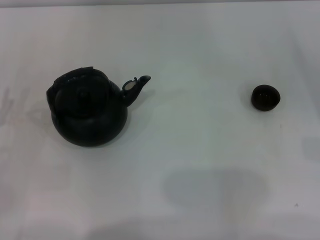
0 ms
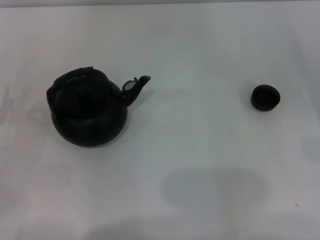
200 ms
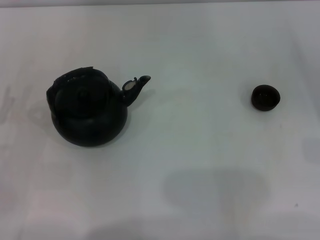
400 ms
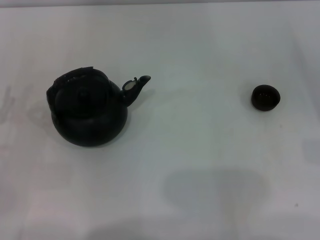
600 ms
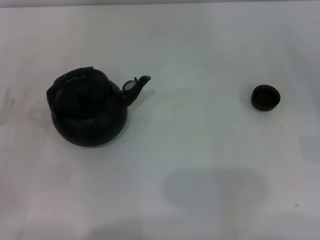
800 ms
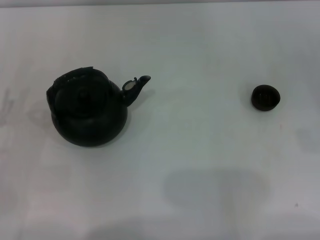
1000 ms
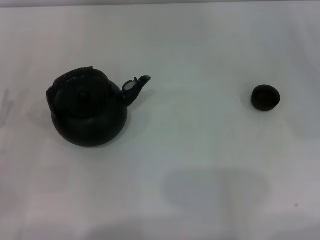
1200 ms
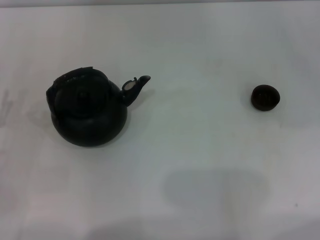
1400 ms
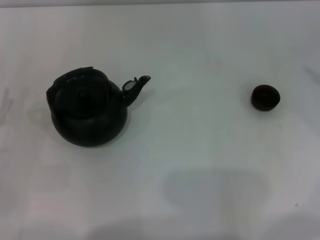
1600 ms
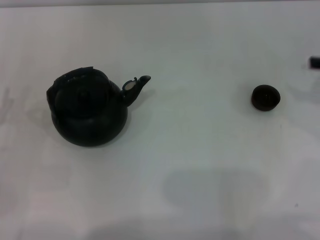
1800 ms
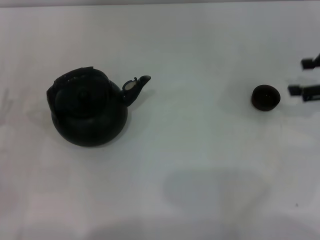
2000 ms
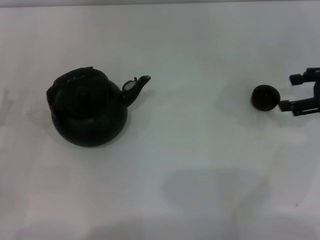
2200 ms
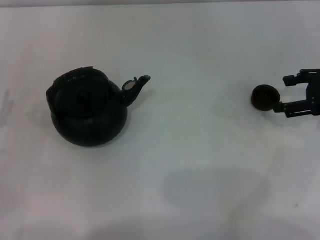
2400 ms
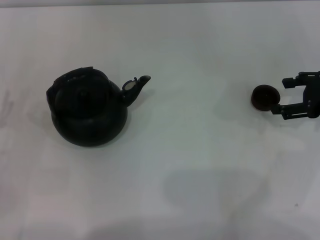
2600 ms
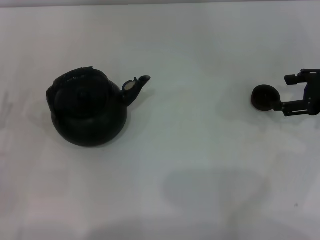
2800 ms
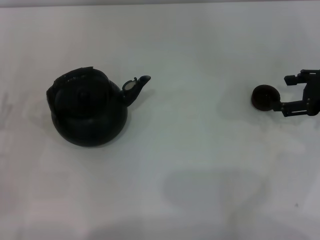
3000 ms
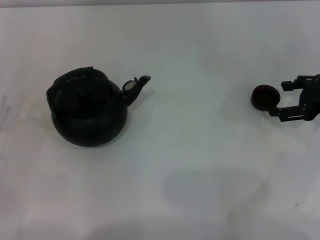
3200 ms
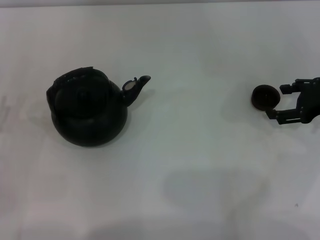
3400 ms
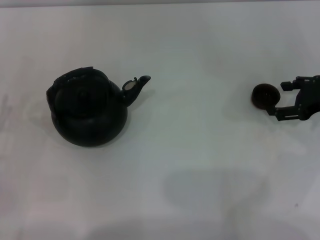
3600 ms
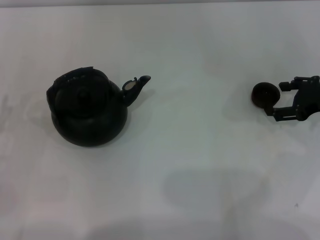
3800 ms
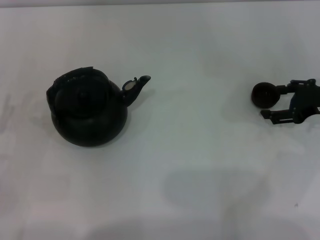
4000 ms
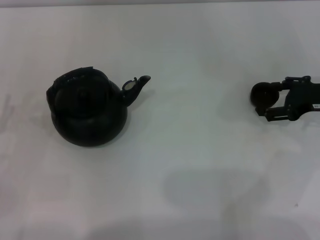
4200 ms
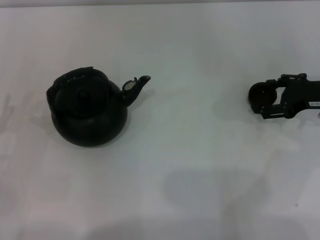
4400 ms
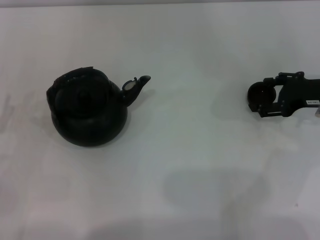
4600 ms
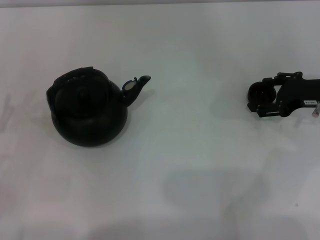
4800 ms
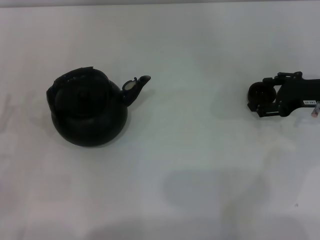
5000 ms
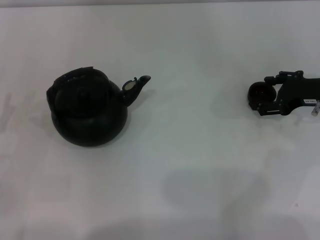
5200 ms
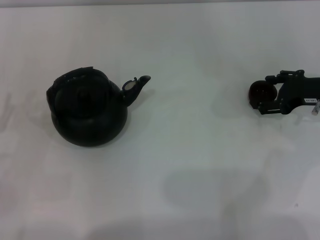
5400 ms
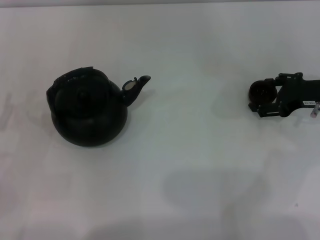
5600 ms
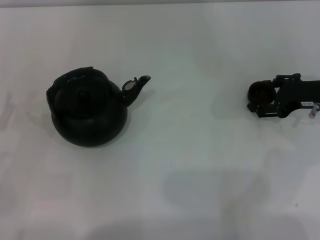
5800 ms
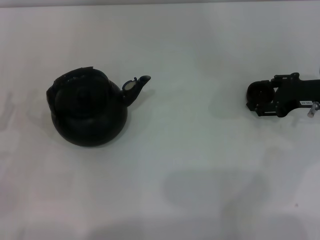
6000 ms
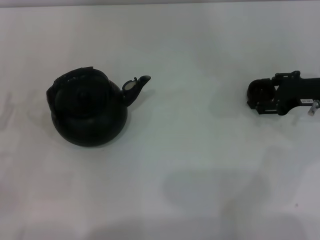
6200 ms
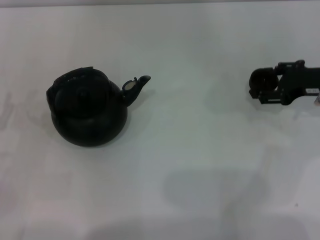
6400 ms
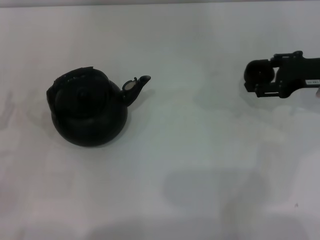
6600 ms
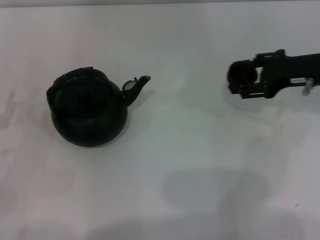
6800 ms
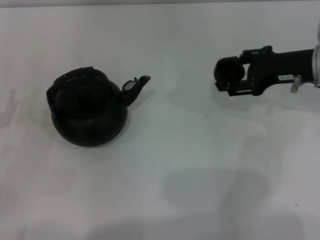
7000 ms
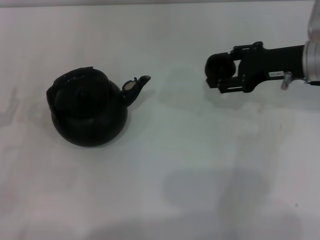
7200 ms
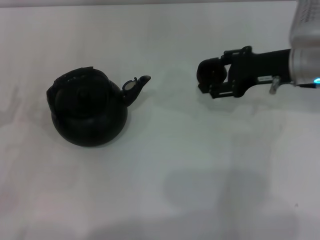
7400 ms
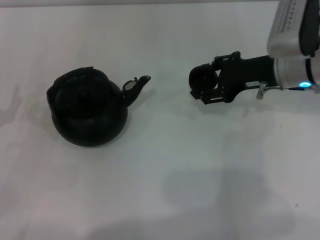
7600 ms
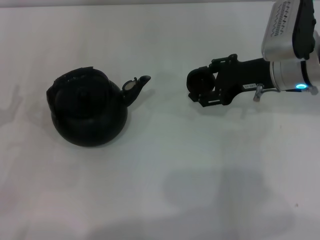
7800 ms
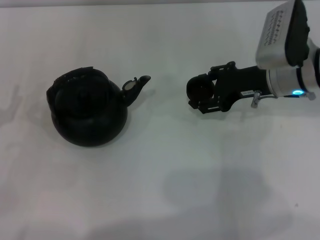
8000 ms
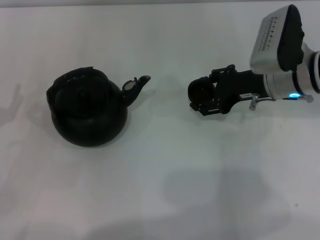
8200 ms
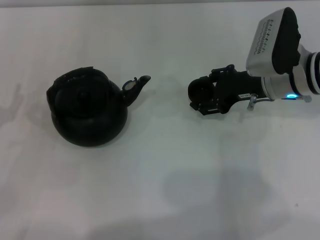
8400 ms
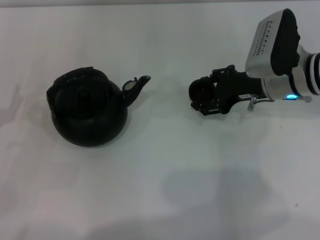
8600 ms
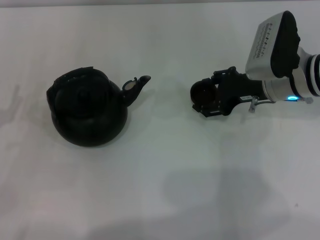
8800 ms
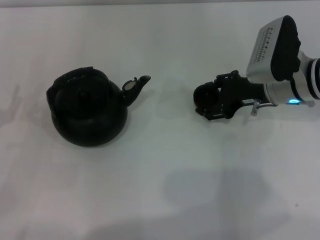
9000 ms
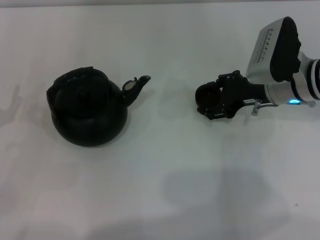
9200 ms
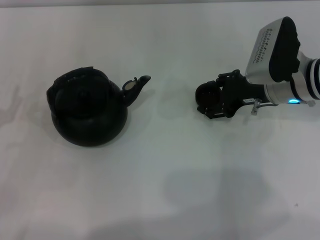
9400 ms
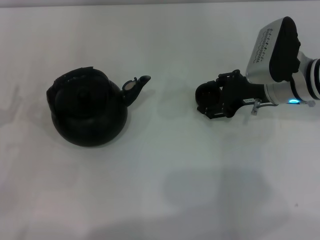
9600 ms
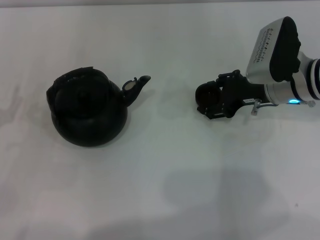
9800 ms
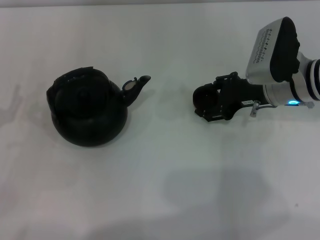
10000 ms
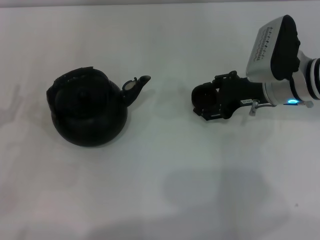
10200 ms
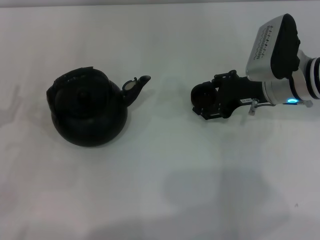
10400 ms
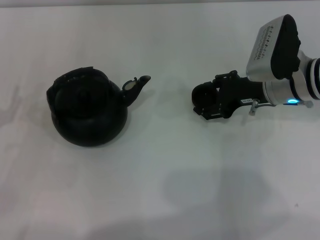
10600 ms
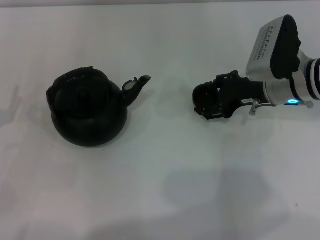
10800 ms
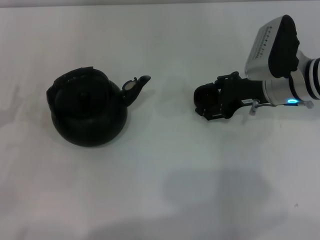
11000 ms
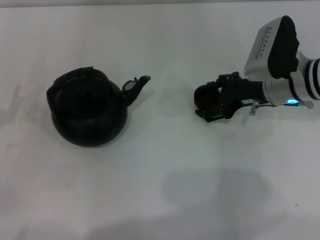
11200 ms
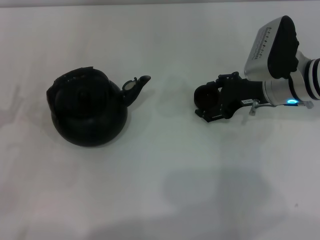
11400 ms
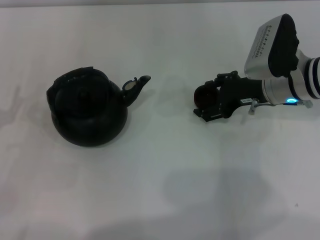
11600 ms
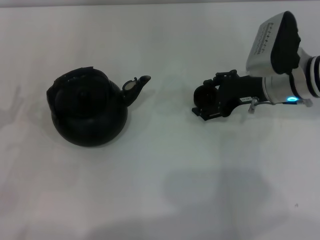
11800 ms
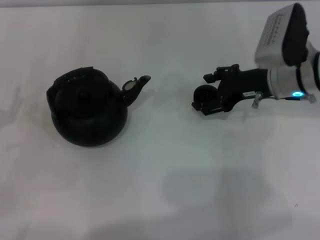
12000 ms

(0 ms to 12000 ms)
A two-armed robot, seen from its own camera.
Task of the whole recording: Grasp the handle of the teapot with one hand and pour tea into the teacup.
Step, 0 ms - 6400 ms: Pick up the teacup with the right gripper.
1600 ms - 3000 ms: The right gripper goes roughly 10 cm to the left and downward.
3000 ms - 6000 ms: There are only small adjustments of the grippers.
6000 ms - 7600 ms: The right gripper goes about 10 cm to the left, and closes its fingers.
7600 ms - 9000 ms: There are only small adjustments of the grippers.
9000 ms - 10400 ms: Both grippers stay put.
10400 ms - 12000 ms: Neither gripper changes place.

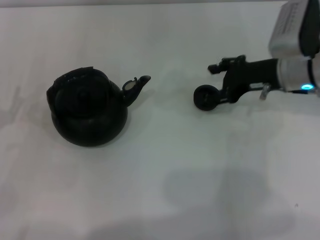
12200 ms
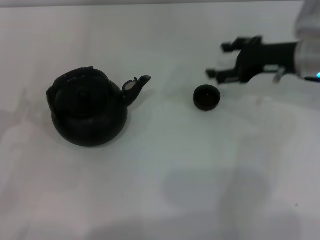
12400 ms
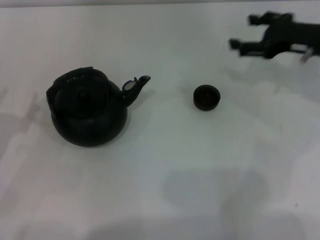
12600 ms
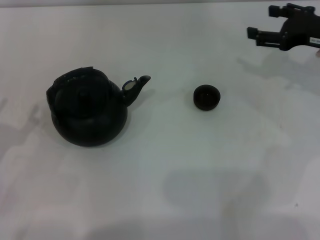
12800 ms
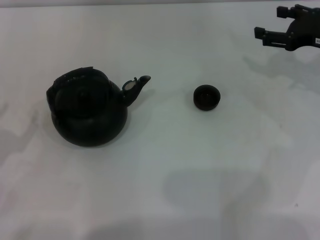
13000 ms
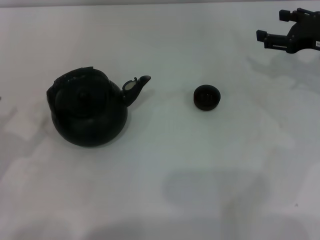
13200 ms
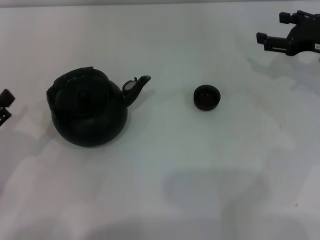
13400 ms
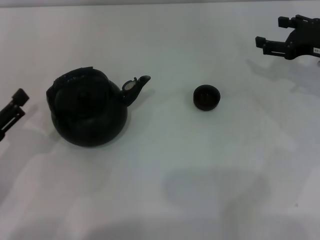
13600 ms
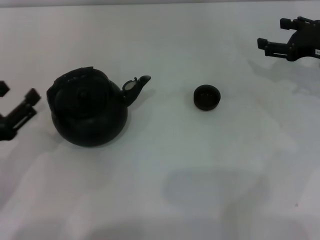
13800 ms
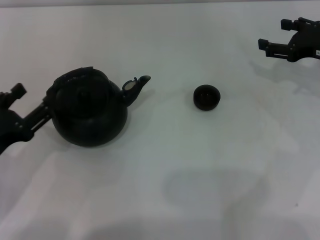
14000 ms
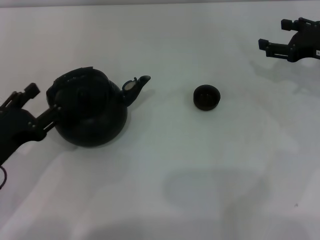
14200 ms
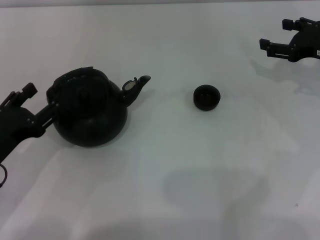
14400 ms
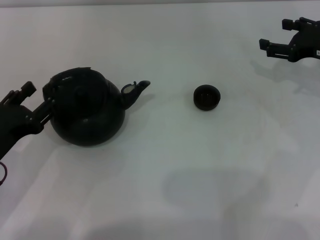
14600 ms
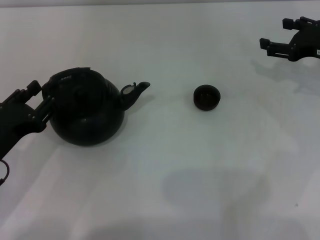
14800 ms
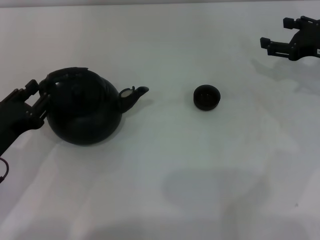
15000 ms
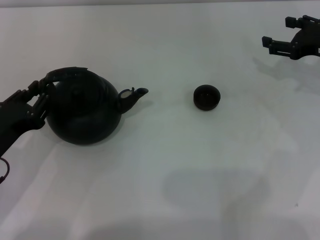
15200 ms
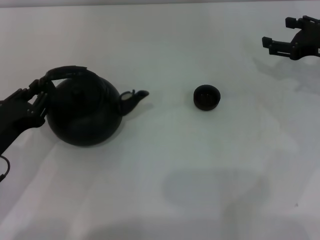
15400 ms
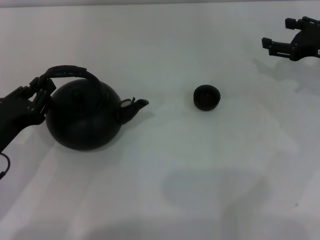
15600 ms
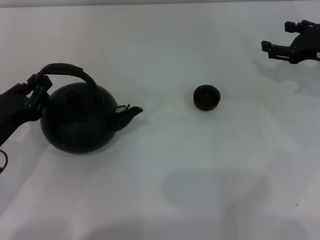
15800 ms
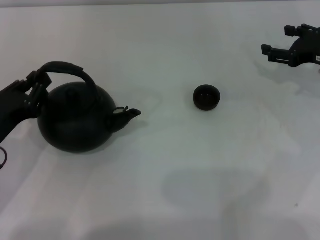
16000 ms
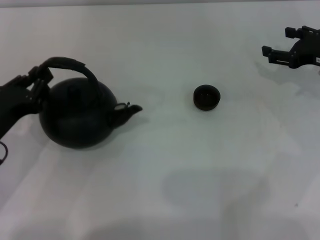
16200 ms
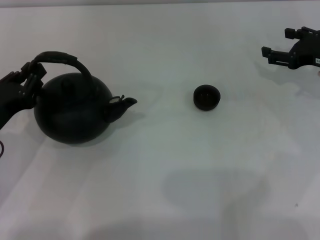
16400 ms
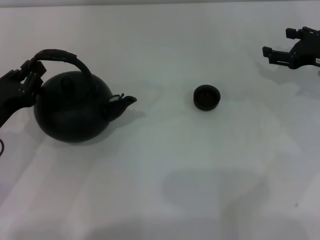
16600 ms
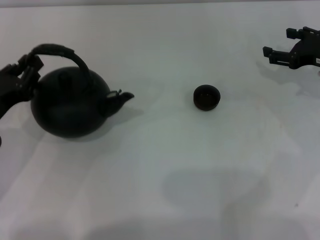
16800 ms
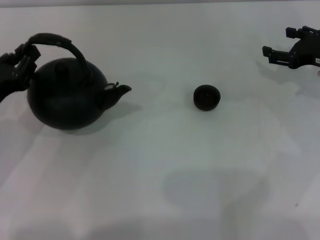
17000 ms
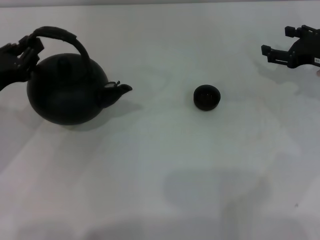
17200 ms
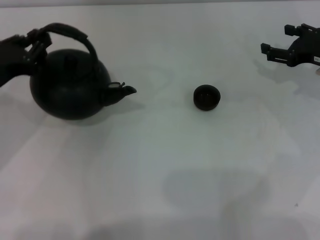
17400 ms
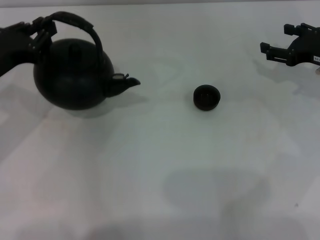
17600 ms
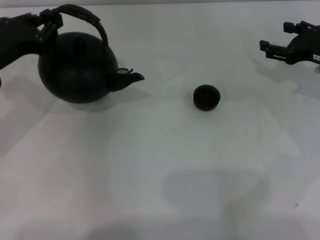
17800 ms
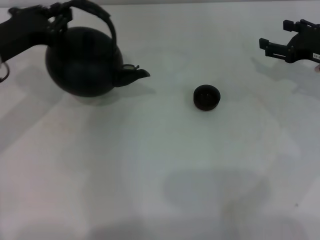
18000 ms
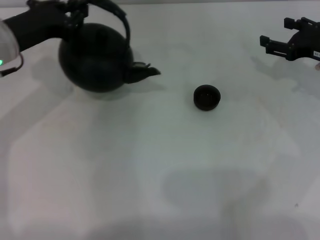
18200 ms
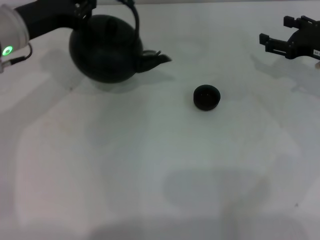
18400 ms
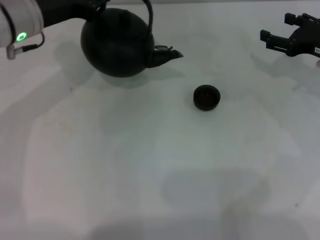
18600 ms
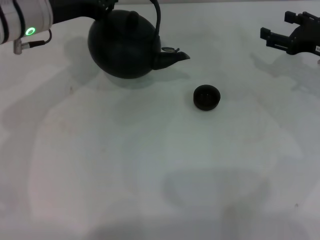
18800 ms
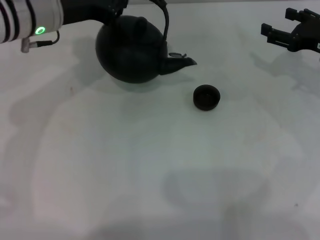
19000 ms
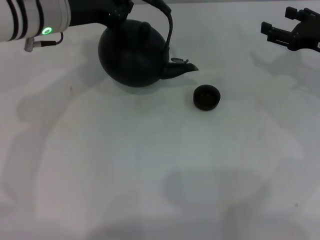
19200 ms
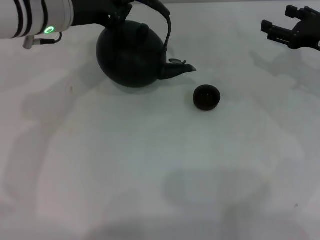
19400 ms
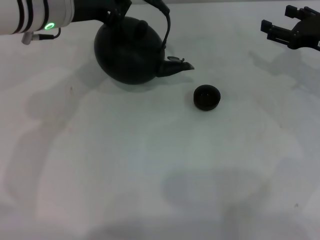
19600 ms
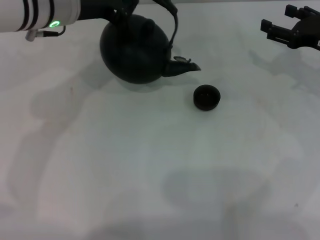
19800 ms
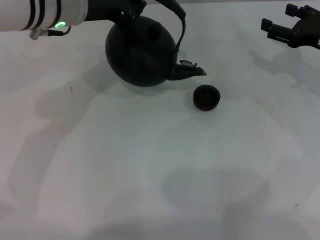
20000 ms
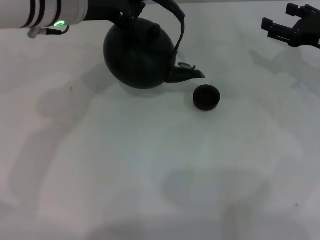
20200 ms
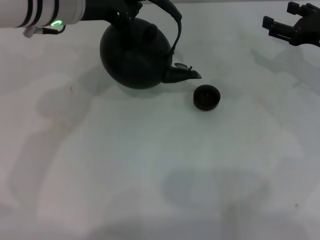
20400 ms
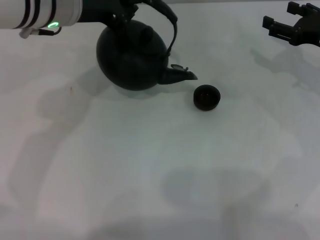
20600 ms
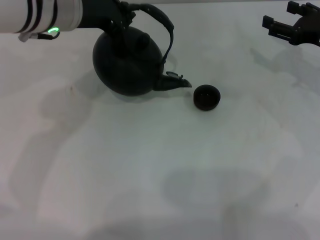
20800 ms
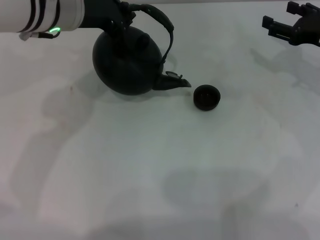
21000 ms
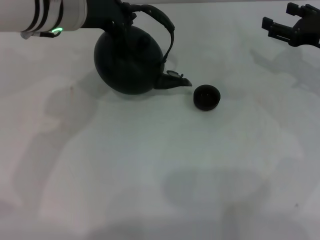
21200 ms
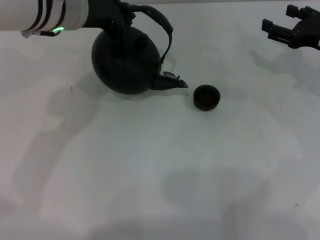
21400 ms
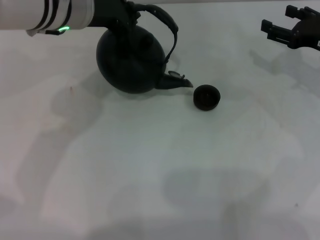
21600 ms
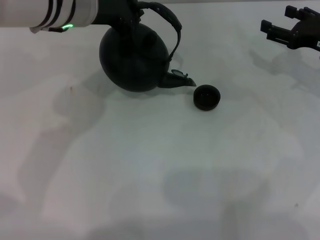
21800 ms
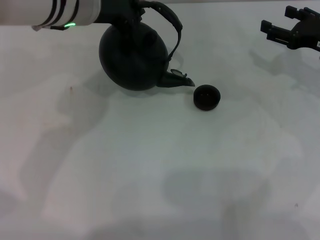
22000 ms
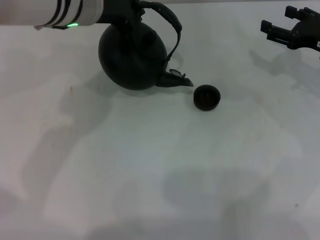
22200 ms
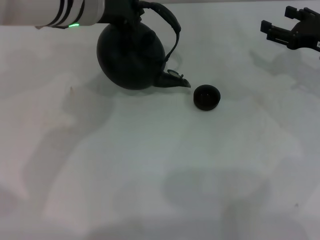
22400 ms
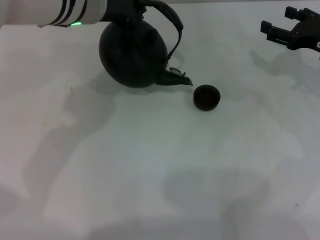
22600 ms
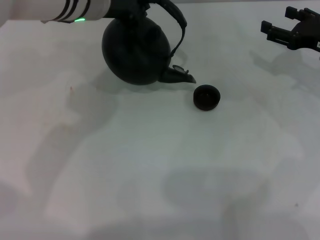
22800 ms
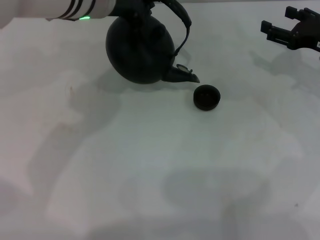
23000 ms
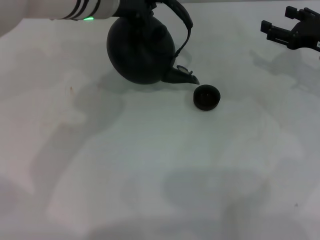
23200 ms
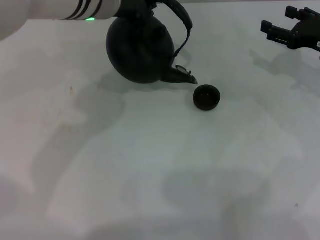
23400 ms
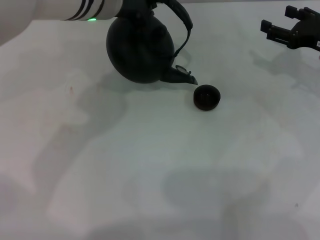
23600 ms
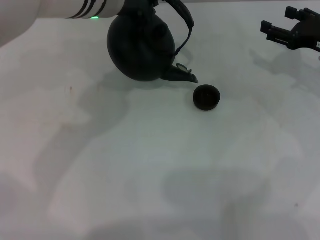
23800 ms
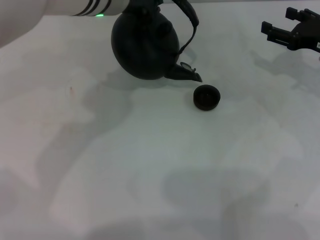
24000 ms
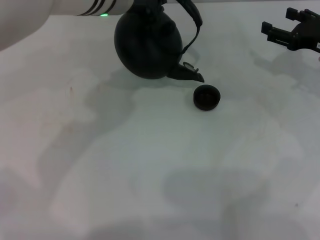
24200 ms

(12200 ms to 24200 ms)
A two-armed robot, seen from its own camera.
Task of the whole recording: Grasp the handle of the teapot with one hand and pour tea into the teacup.
Step, 12400 ms - 18000 ms: Pick up the teapot with the left gripper.
12200 ms - 13800 ms: The right gripper goes about 10 cm to the right, while the left gripper changes place by approximately 5 cm.
13800 ms - 15200 ms: The left gripper closes its fingers.
15200 ms - 16600 ms: The grippers stay close to where they were, moving slightly.
16600 ms - 18200 ms: The left gripper goes some 15 cm forward and upward.
18200 ms - 19800 ms: The left gripper shifts about 10 cm to the right.
19800 ms - 21200 ms: The grippers make only small movements.
21200 ms - 22600 ms: The grippers stay close to where they were, moving slightly.
22600 ms - 24200 ms: The grippers make only small movements.
